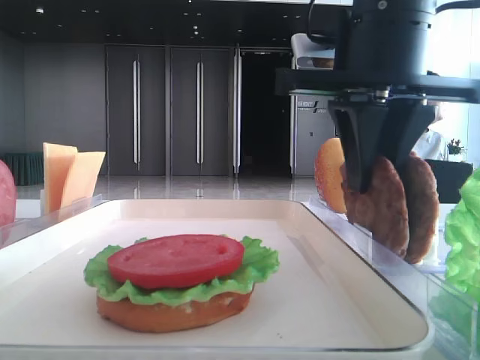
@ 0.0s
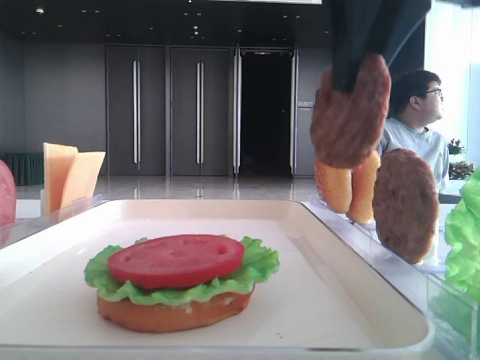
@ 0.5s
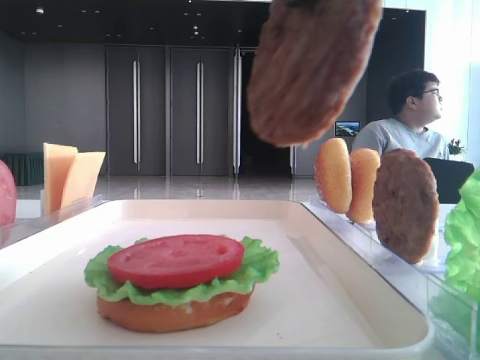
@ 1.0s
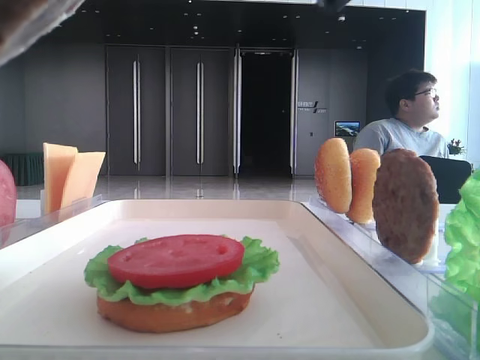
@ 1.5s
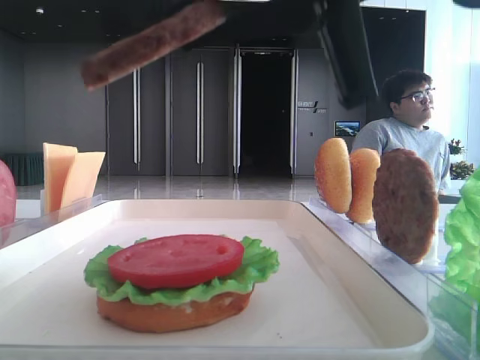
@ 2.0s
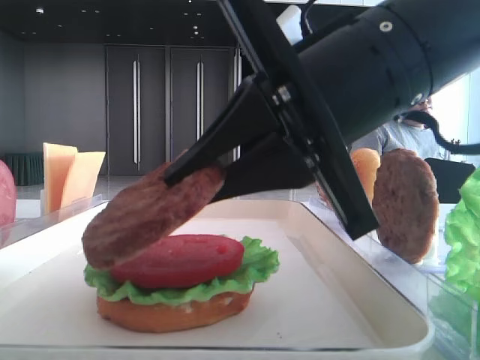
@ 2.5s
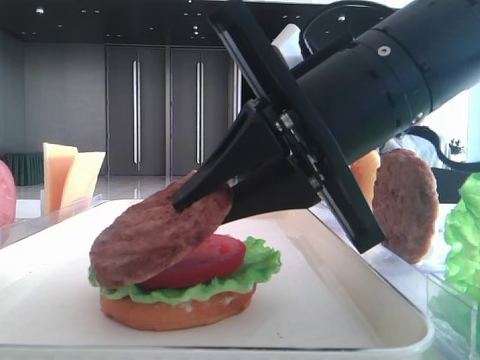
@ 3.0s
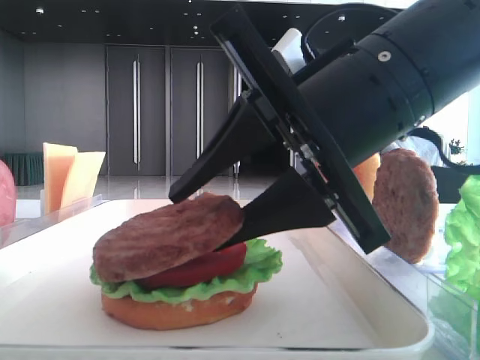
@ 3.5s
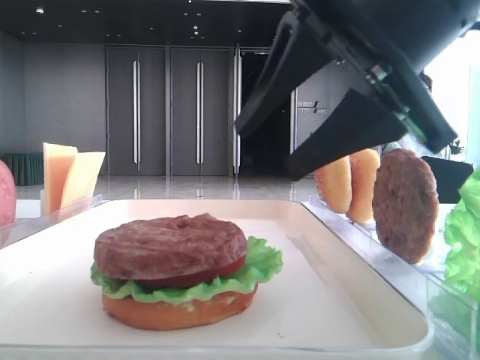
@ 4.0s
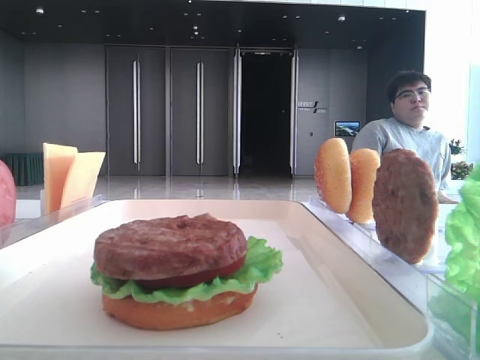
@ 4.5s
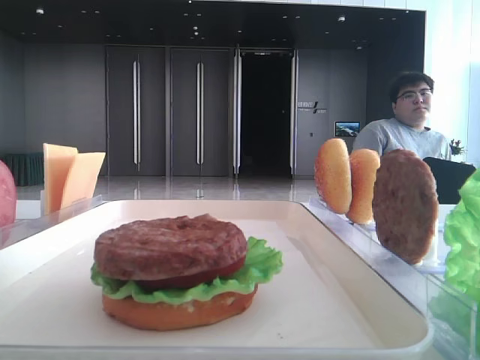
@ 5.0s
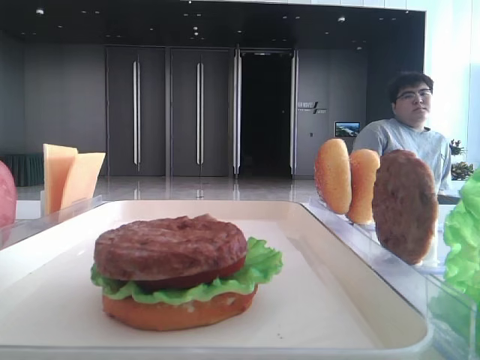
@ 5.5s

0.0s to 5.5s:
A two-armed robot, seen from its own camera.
Step, 0.5s to 3.5s: Place the patty on the tomato slice with the right hand.
0.0s to 2.0s: The right gripper goes approximately 10 cm backward.
2.0s to 3.5s: The right gripper travels downward by approximately 10 cm, and opens. The left gripper closes up.
3.5s to 5.5s: The right gripper shifts about 35 cm backward, to the right and upward.

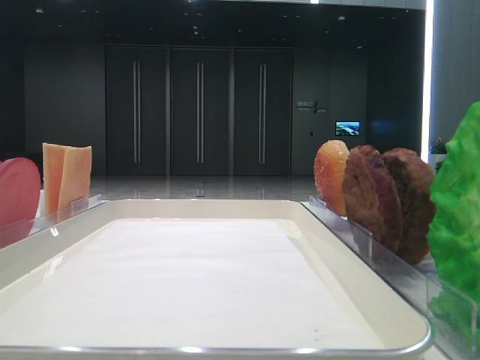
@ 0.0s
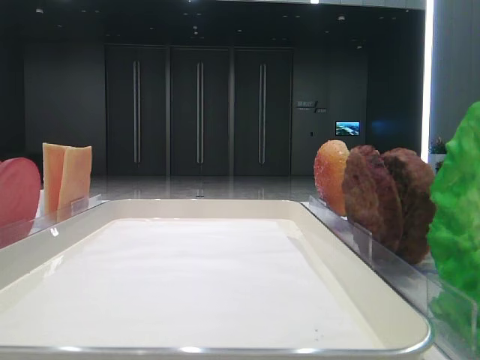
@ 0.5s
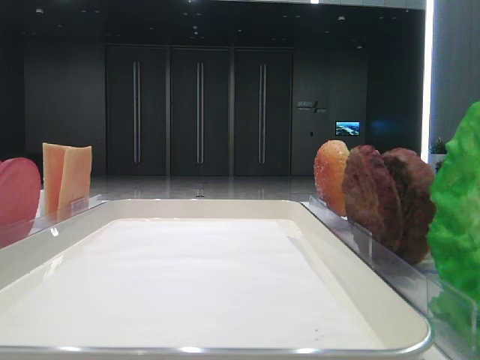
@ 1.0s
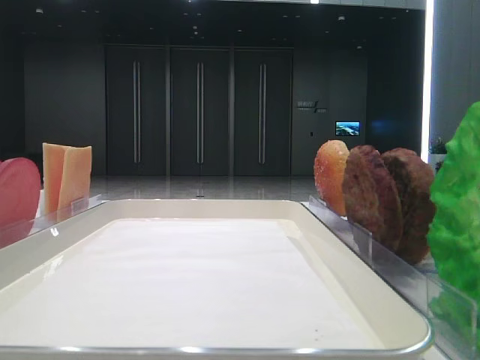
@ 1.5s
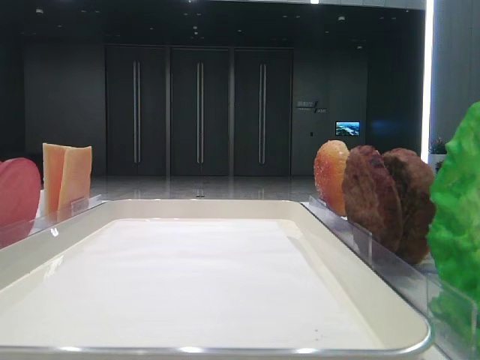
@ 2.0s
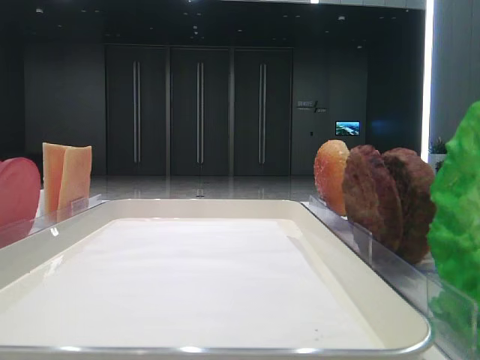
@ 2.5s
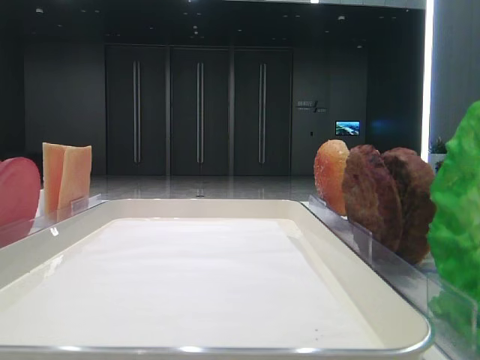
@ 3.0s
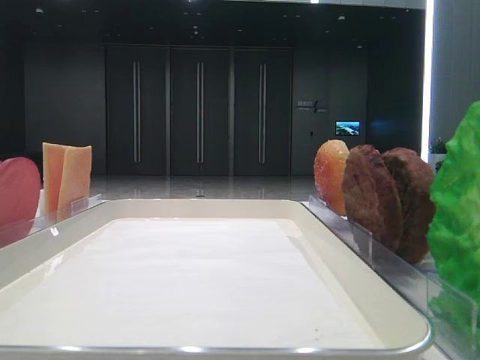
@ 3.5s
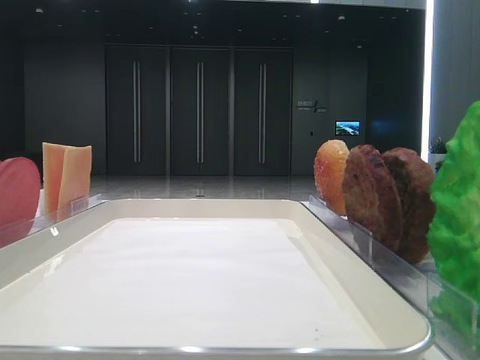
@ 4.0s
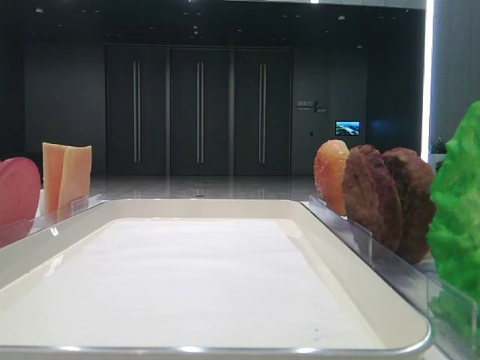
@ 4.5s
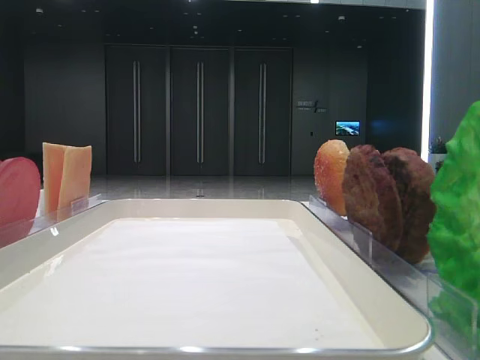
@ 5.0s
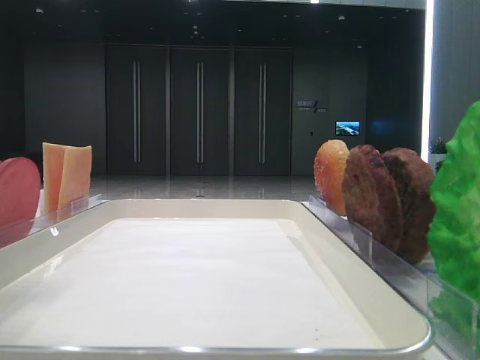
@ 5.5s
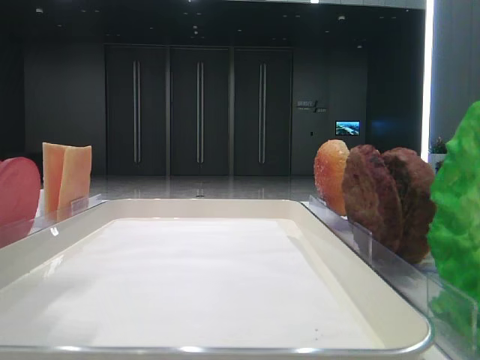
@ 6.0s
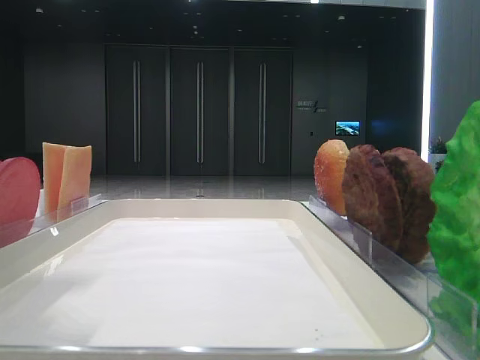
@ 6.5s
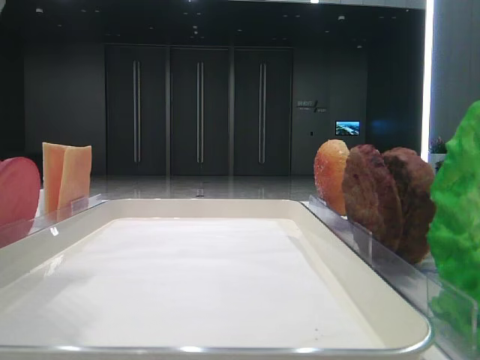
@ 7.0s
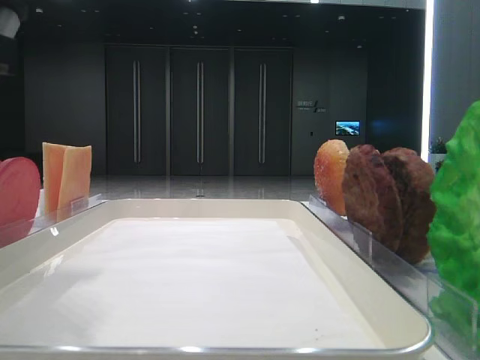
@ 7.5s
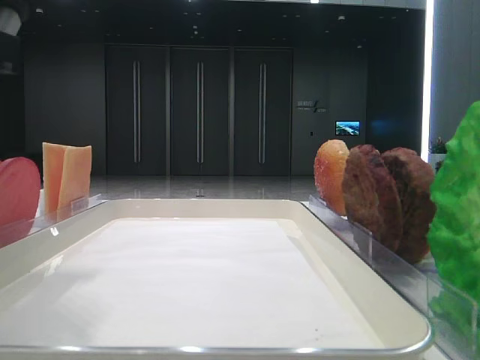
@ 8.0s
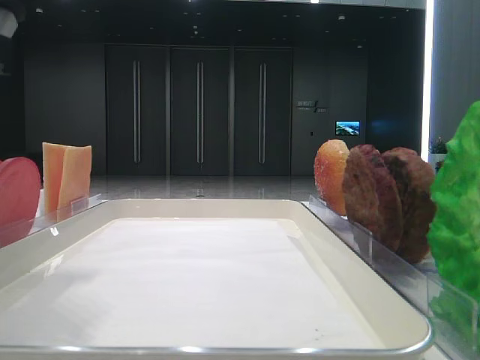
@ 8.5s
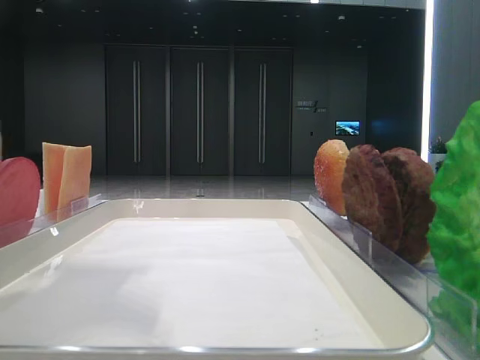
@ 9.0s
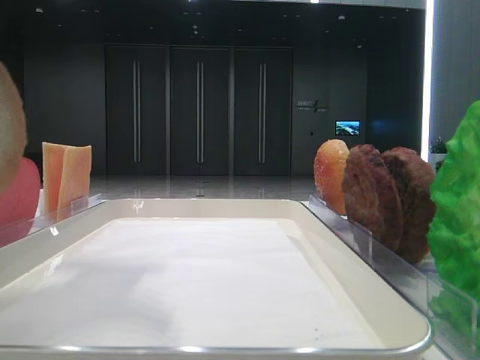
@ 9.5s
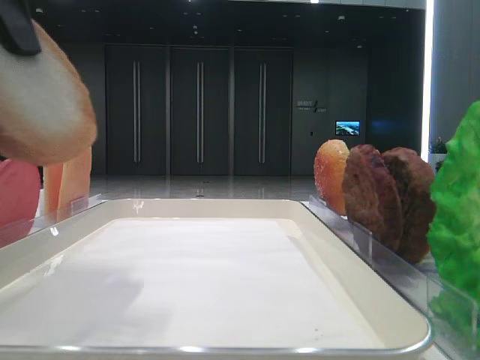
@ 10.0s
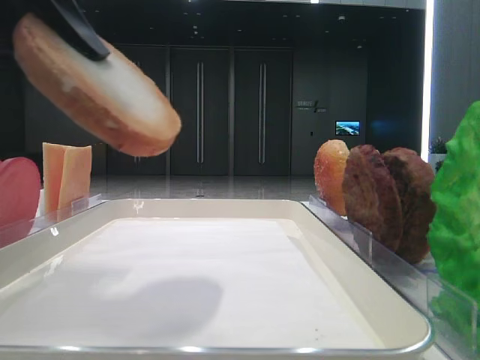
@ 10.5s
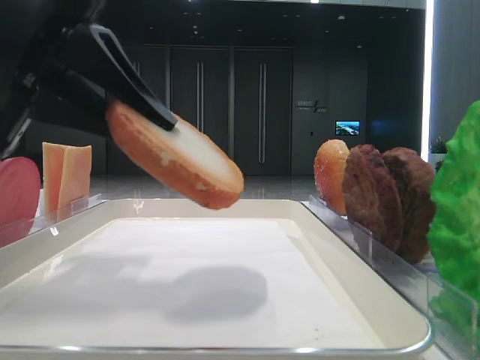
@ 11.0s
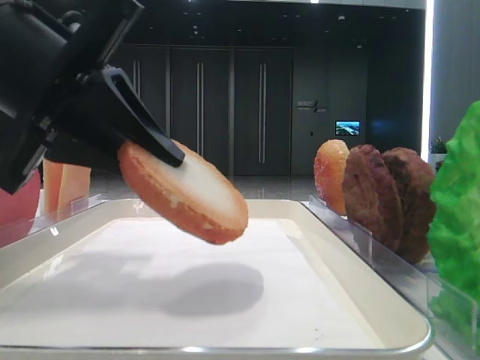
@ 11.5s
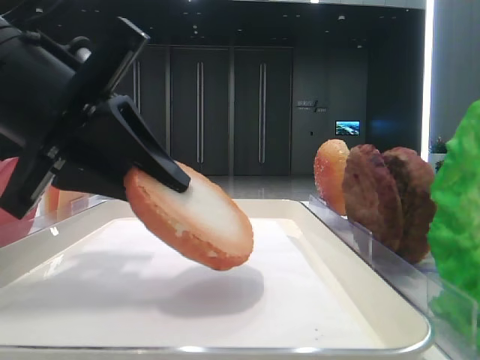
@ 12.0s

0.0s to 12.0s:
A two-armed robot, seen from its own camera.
4.0s to 6.0s: The left gripper goes approximately 10 cm to the right.
6.0s to 8.0s: The left gripper travels downward by about 5 cm, and closes its fingers.
8.0s to 10.0s: The left gripper travels upward by approximately 5 cm, and closes.
10.0s to 12.0s: The left gripper shifts roughly 15 cm downward.

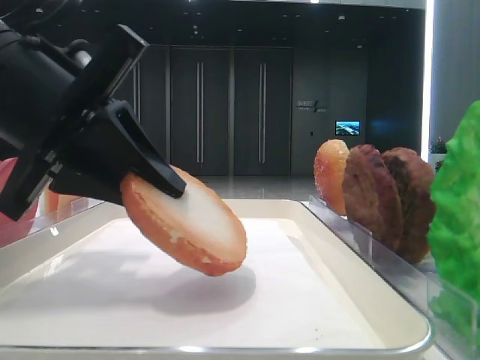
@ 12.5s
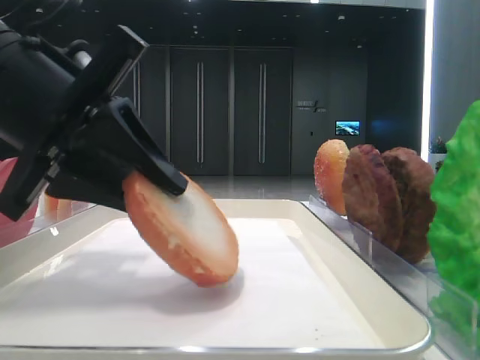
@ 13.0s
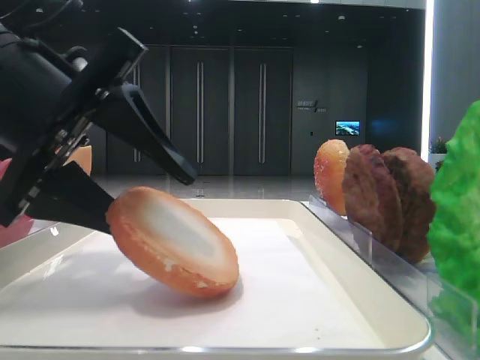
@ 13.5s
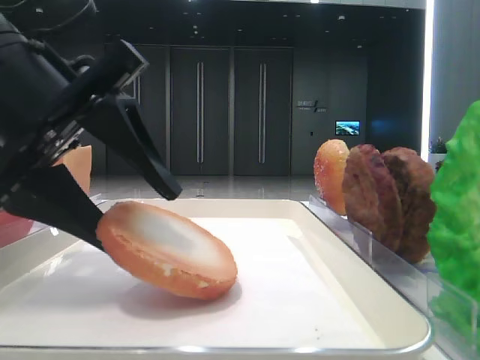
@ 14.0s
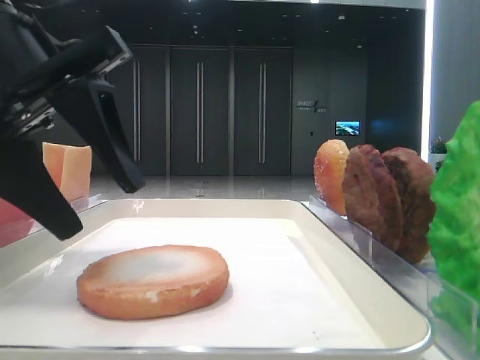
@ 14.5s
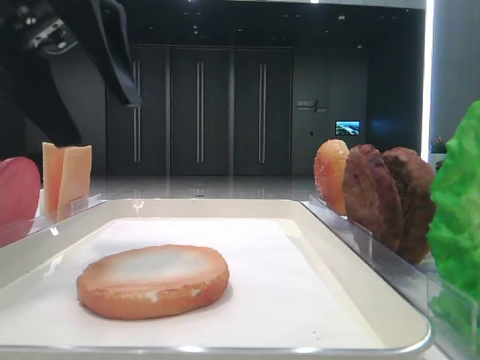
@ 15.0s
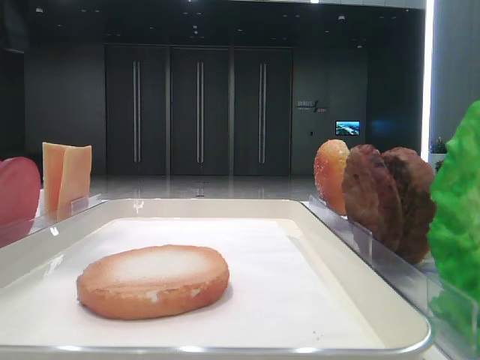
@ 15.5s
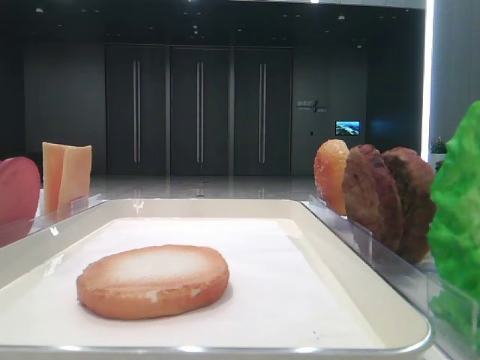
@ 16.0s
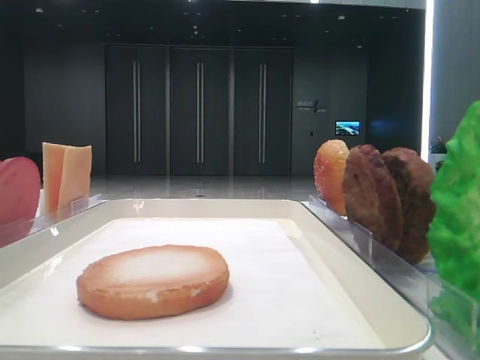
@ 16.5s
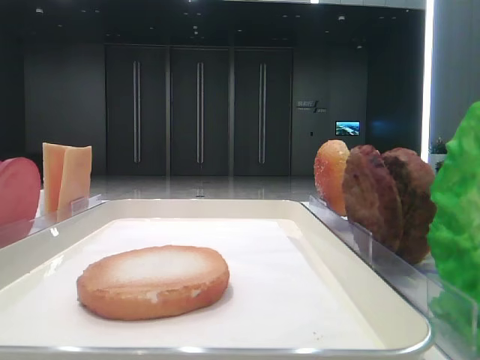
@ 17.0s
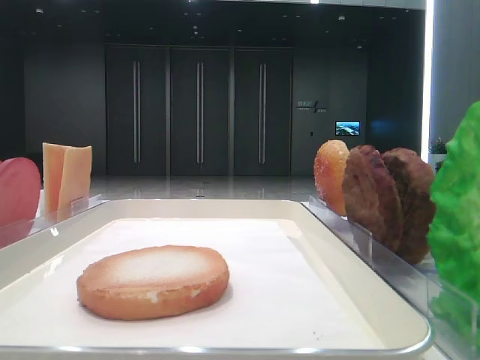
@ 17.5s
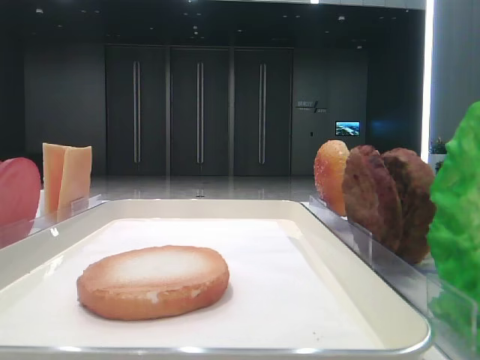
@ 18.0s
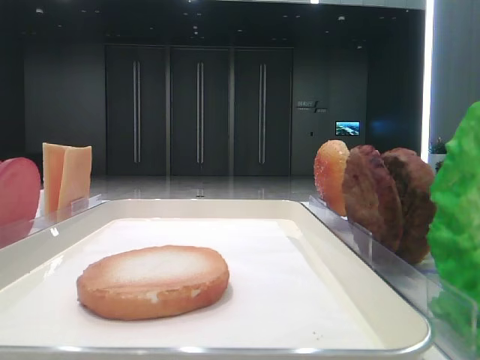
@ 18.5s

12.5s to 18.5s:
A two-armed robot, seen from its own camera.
12.5s to 14.5s: The left gripper opens.
14.5s to 16.5s: The left gripper moves upward and to the left, about 25 cm.

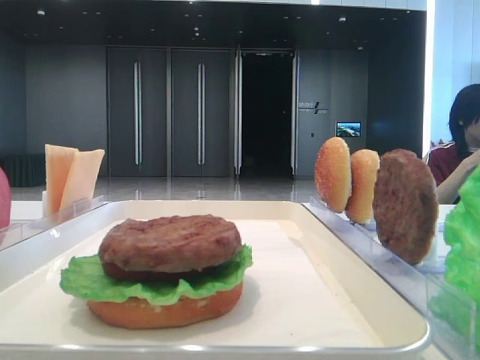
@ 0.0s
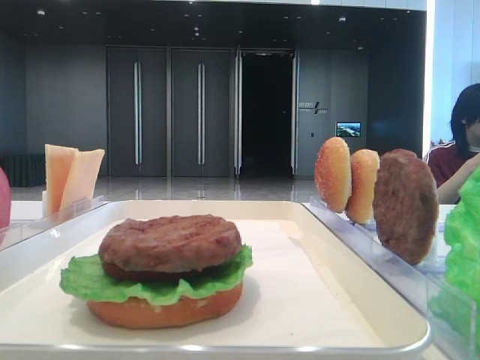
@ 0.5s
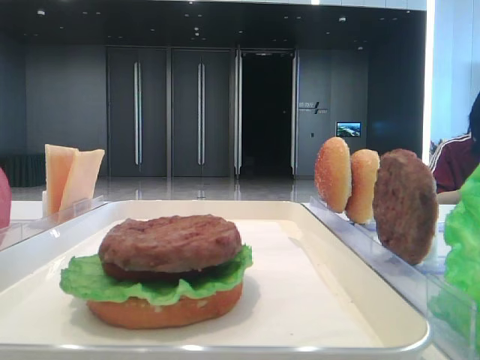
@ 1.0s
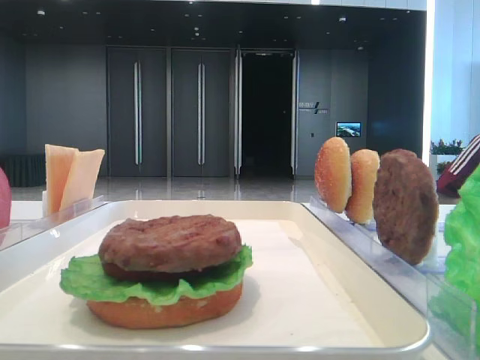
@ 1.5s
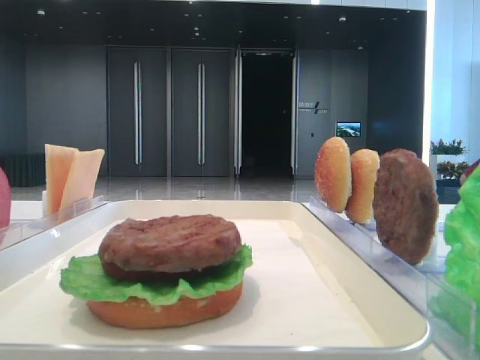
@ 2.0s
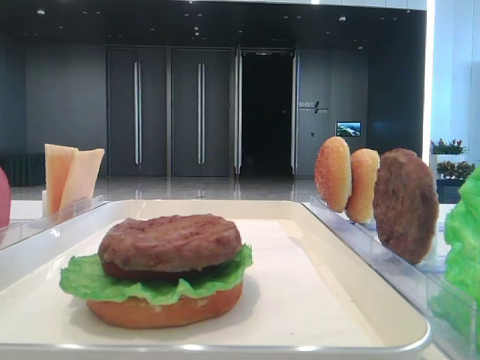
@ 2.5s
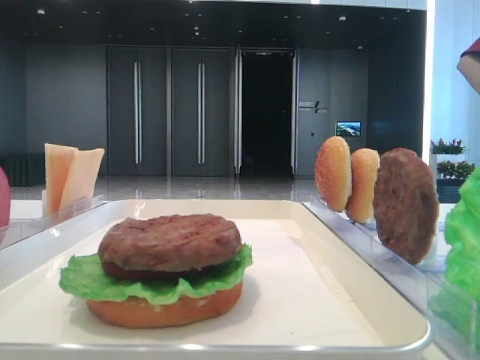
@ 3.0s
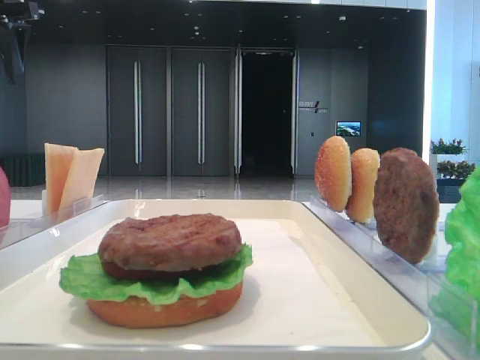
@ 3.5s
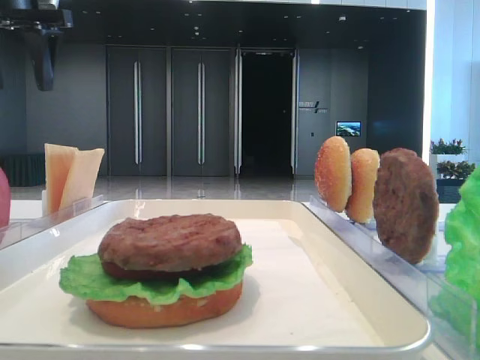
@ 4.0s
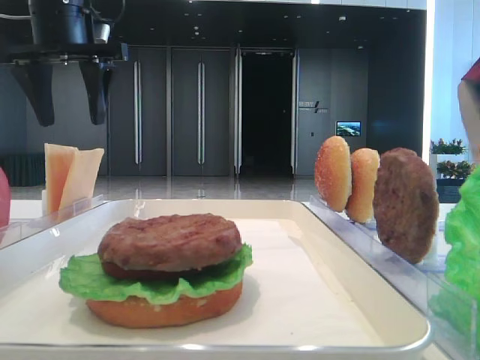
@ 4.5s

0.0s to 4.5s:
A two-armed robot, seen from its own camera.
2.0s to 4.5s: The left gripper heads forward, covering approximately 35 cm.
